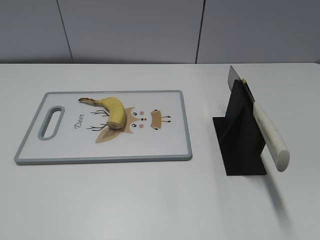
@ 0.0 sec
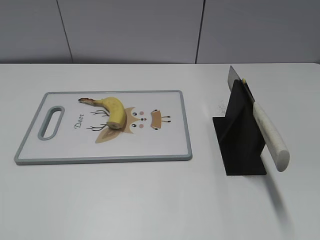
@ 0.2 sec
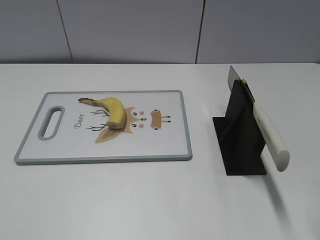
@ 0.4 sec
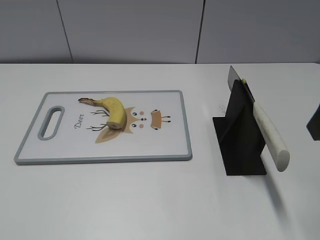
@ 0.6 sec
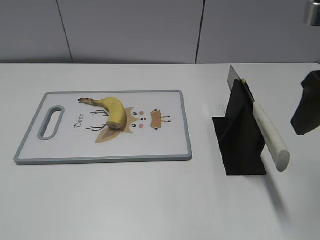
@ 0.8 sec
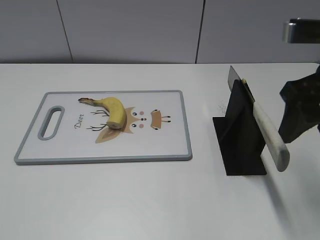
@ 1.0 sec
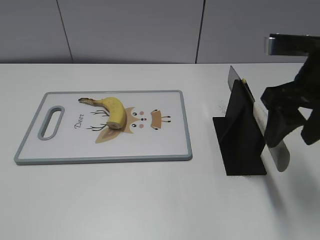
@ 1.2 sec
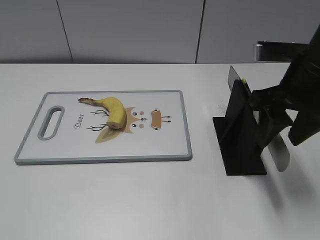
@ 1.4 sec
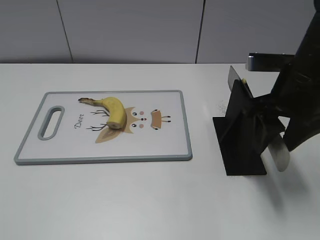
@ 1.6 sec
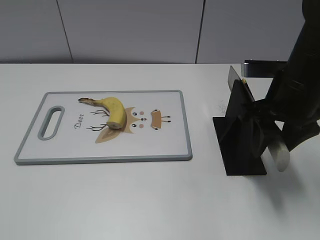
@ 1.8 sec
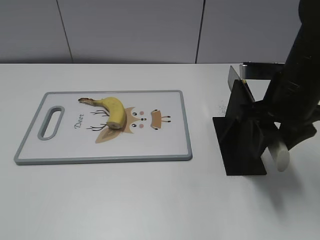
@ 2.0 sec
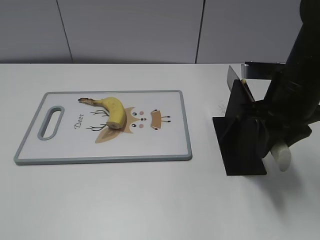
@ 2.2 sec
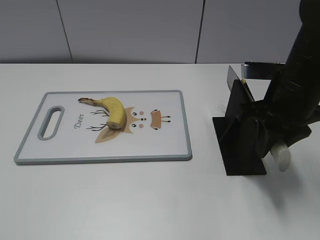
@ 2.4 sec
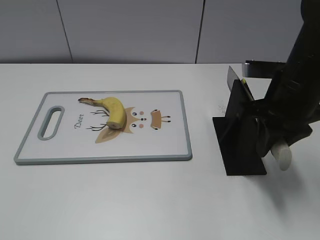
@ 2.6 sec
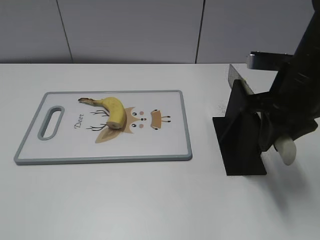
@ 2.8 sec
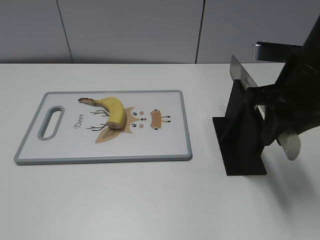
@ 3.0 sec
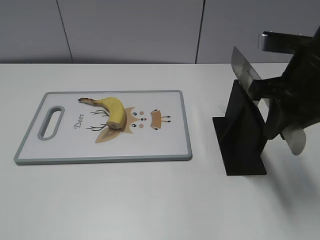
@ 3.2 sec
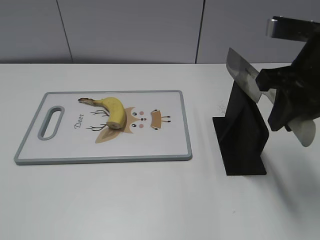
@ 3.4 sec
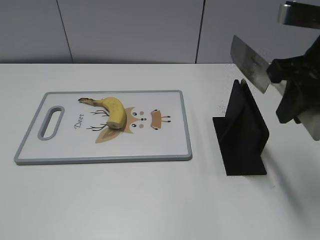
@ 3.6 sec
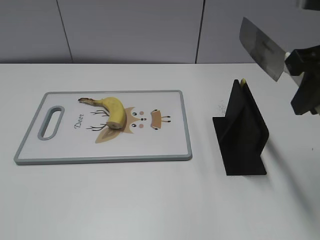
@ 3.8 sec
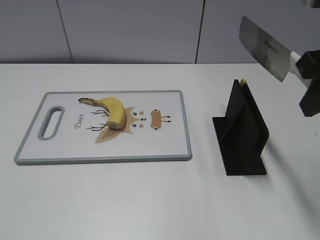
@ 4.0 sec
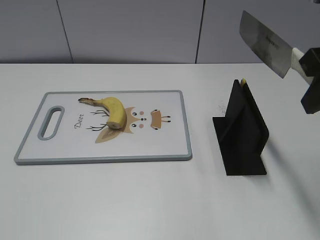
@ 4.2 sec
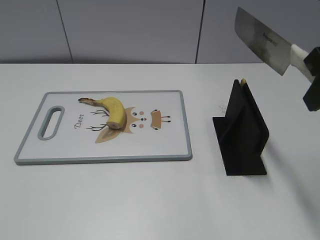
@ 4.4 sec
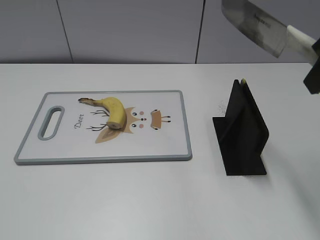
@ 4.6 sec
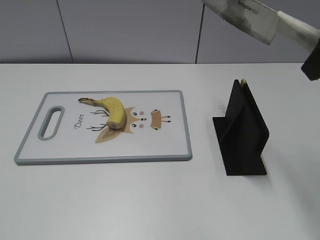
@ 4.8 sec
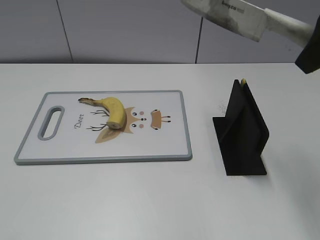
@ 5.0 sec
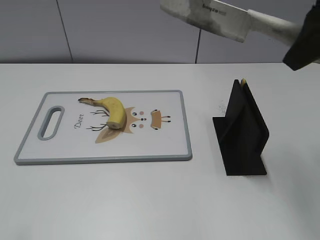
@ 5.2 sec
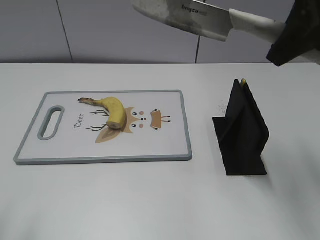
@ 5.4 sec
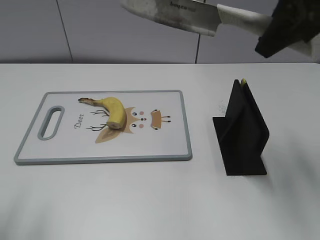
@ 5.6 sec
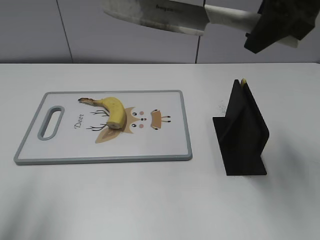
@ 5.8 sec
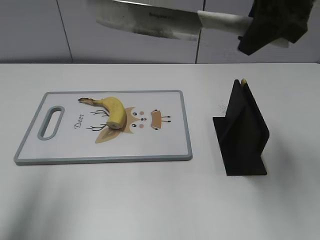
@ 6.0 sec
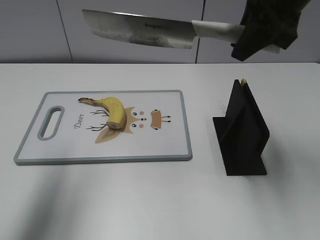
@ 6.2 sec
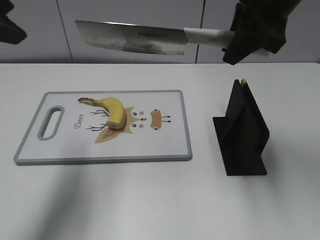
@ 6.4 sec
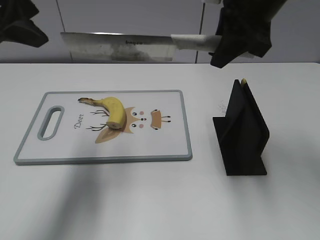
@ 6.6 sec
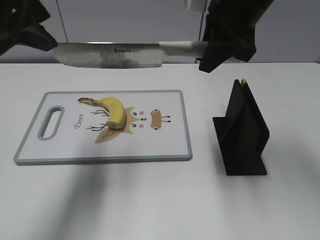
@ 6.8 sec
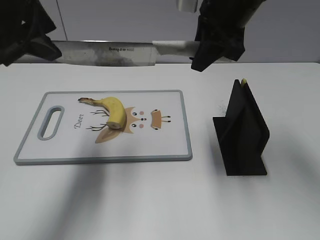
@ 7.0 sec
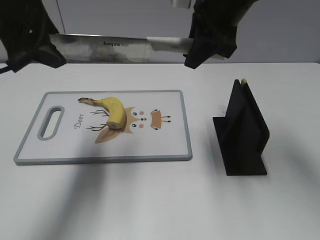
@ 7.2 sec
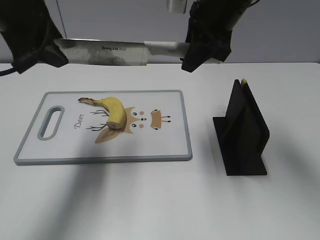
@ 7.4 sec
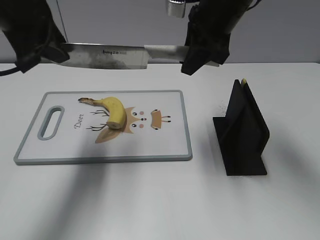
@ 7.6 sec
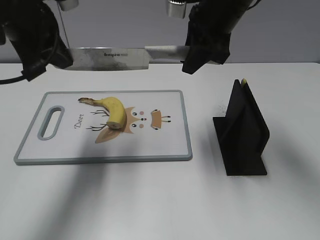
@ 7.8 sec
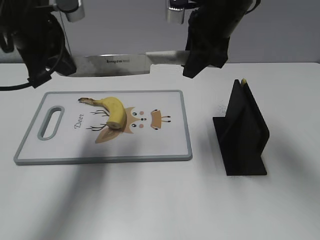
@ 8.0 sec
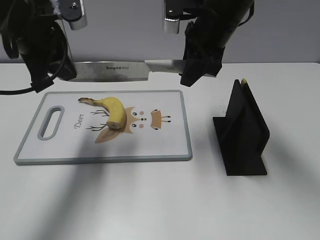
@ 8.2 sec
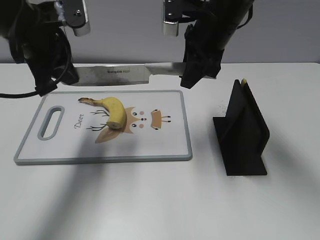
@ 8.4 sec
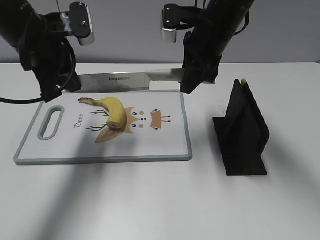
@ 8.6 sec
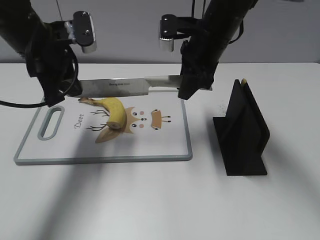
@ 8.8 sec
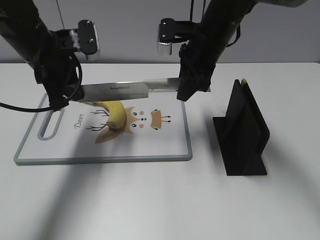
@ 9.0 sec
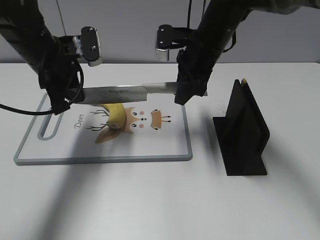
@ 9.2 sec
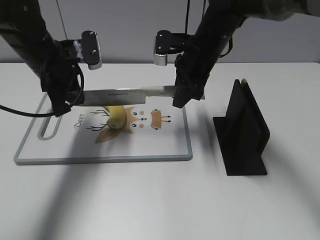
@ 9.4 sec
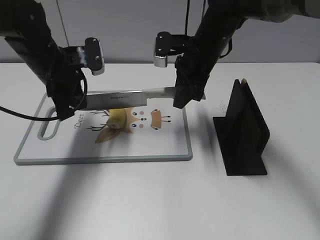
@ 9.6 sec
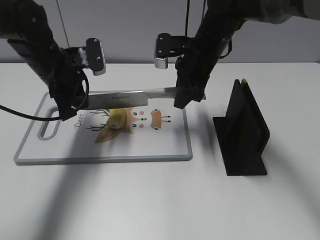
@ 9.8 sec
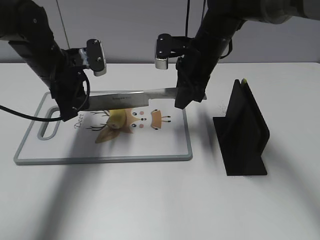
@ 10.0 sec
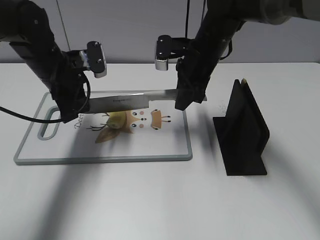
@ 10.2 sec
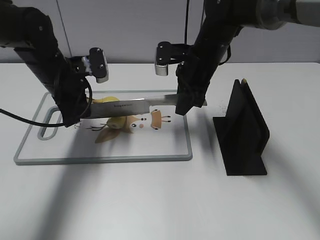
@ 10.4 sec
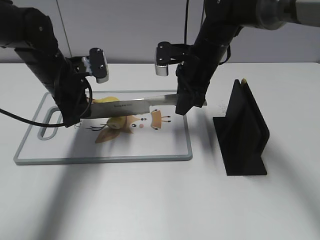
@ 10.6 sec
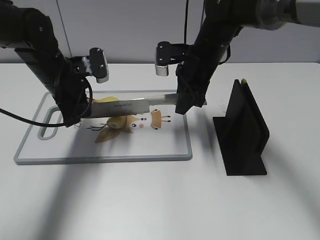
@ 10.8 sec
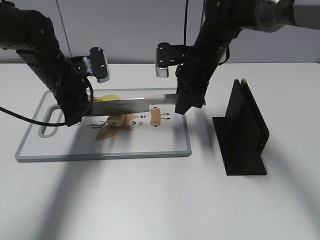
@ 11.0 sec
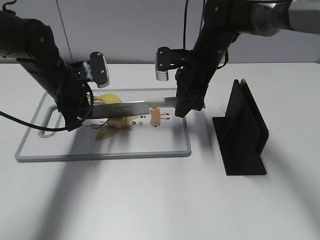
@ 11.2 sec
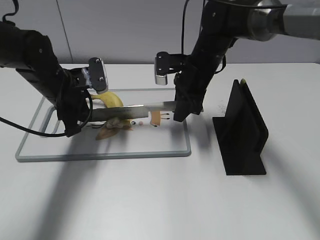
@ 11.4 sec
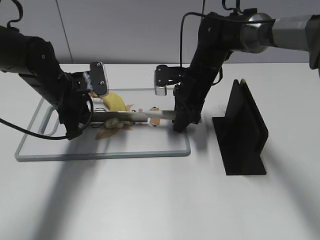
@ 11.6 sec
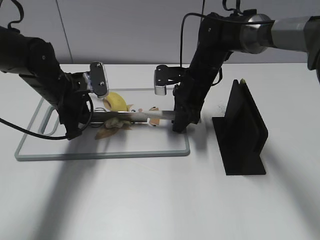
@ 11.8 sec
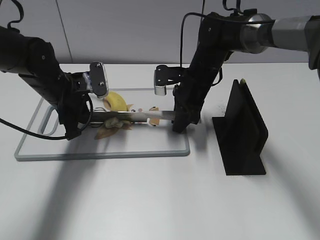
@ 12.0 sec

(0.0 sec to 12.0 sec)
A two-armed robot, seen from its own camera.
Task of the whole recording: cut banana.
Step, 0.0 sec - 3.4 sec: Grab the knife handle with your right hand.
Step, 3.6 sec - 10.4 sec: Lift the knife with your right hand.
0.0 sec - 1.6 sec: The right gripper goes roughly 20 cm forward, downward and to the left.
1.6 sec - 3.0 sec: The right gripper closes up.
3.0 sec - 4.4 sec: The right gripper goes roughly 10 cm upward and backward.
4.4 sec - 6.0 sec: The left gripper shifts roughly 20 cm forward and upward. The right gripper goes about 10 cm forward.
6.0 sec - 7.6 sec: The left gripper shifts about 15 cm forward, to the right and downward, and closes its fingers; the right gripper heads downward, to the left and forward, covering approximately 10 cm.
7.6 sec - 9.0 sec: The two grippers go some 10 cm downward. The left gripper closes.
9.0 sec - 10.4 sec: The left gripper heads downward, covering some 5 cm.
10.4 sec - 12.0 sec: The right gripper heads downward, covering some 5 cm.

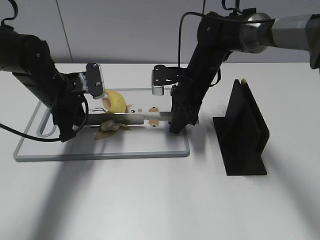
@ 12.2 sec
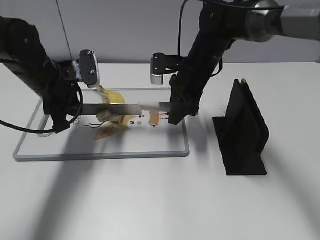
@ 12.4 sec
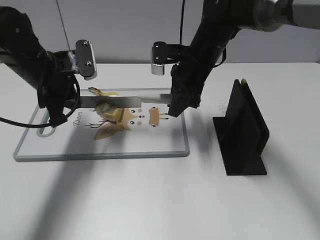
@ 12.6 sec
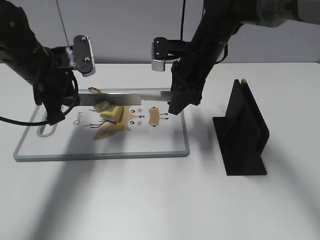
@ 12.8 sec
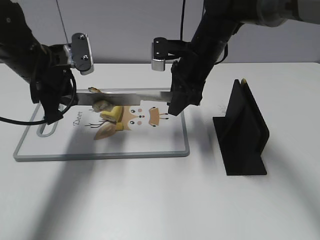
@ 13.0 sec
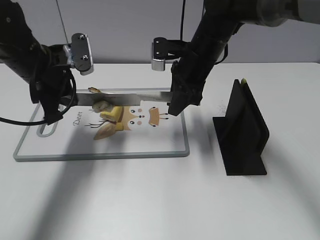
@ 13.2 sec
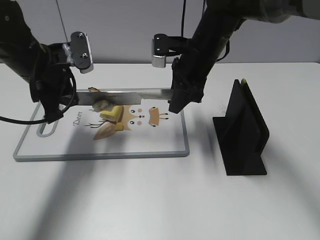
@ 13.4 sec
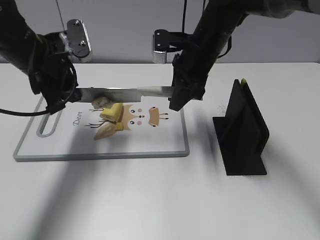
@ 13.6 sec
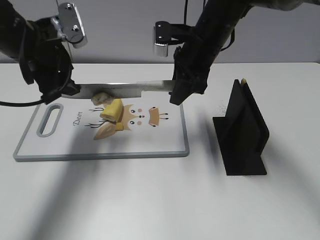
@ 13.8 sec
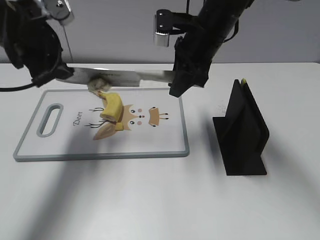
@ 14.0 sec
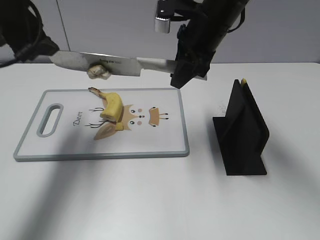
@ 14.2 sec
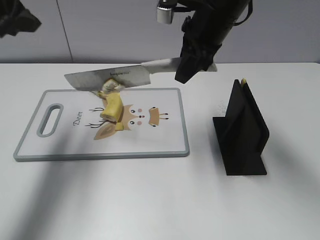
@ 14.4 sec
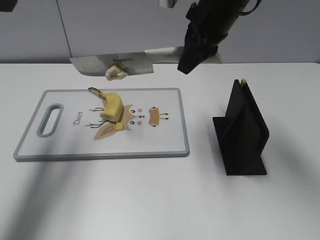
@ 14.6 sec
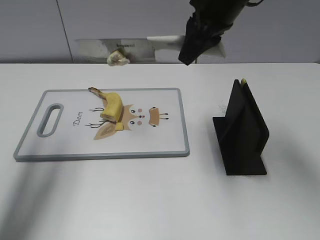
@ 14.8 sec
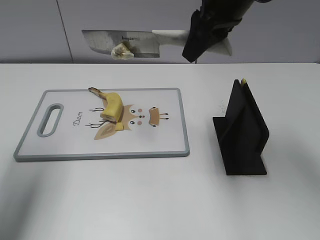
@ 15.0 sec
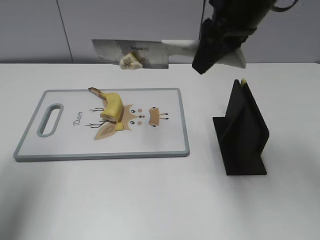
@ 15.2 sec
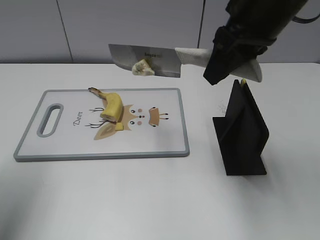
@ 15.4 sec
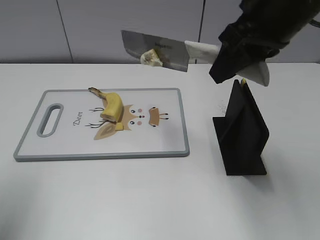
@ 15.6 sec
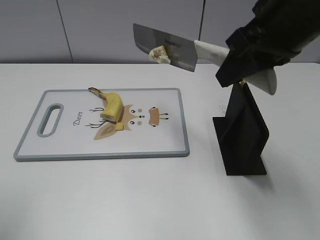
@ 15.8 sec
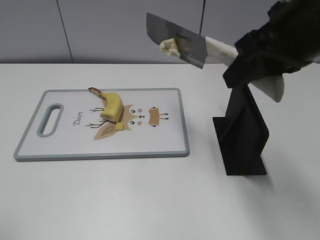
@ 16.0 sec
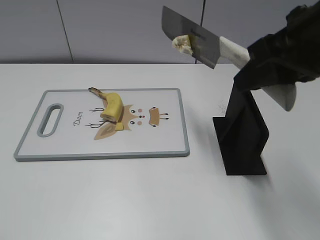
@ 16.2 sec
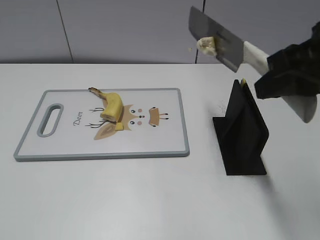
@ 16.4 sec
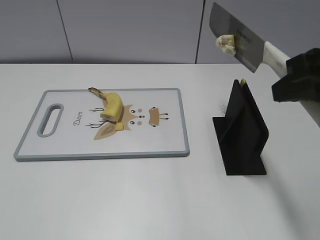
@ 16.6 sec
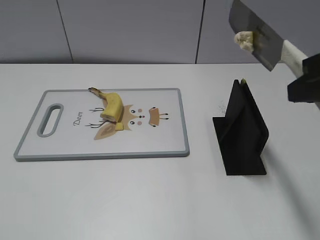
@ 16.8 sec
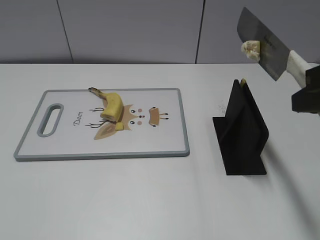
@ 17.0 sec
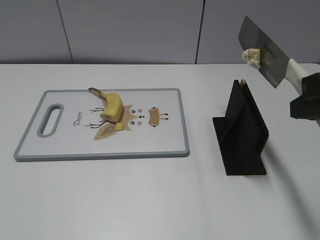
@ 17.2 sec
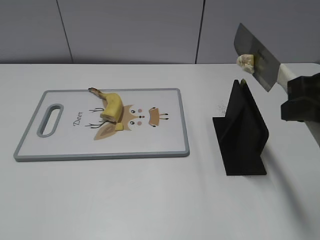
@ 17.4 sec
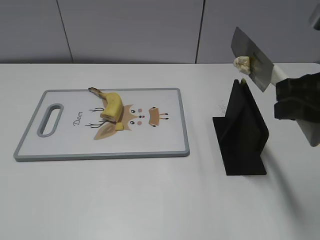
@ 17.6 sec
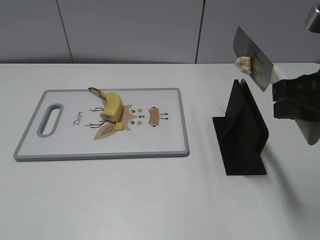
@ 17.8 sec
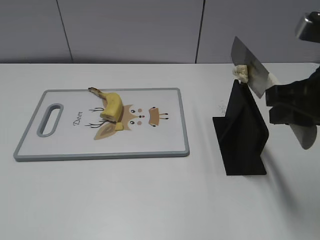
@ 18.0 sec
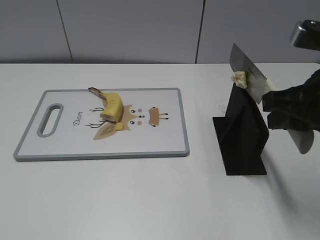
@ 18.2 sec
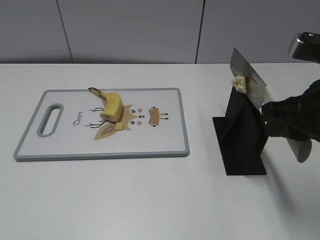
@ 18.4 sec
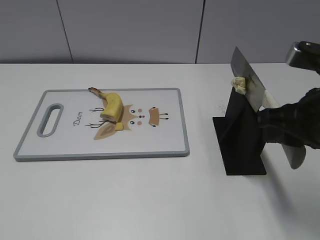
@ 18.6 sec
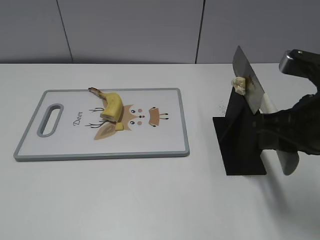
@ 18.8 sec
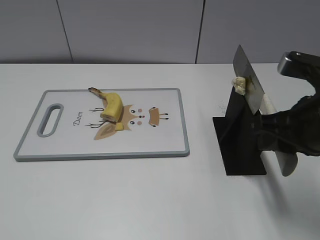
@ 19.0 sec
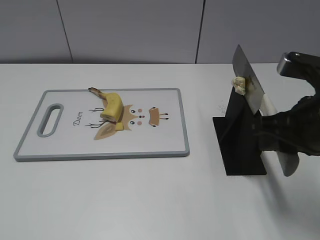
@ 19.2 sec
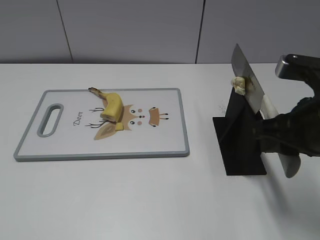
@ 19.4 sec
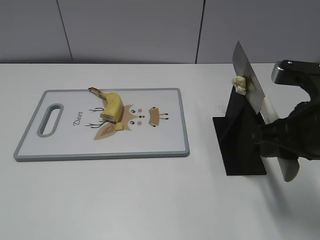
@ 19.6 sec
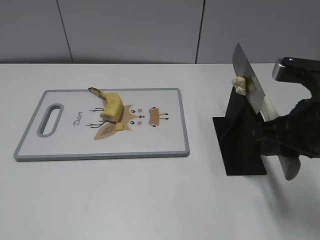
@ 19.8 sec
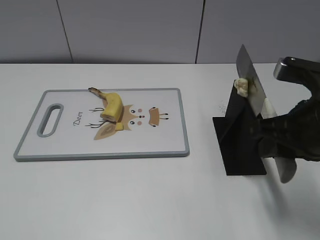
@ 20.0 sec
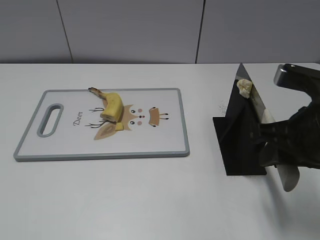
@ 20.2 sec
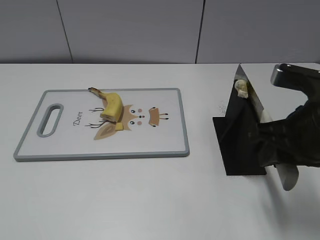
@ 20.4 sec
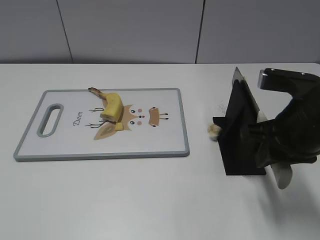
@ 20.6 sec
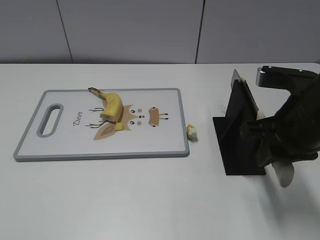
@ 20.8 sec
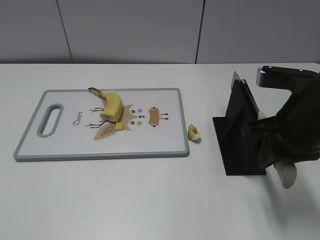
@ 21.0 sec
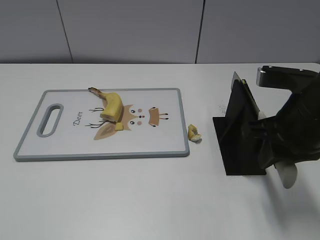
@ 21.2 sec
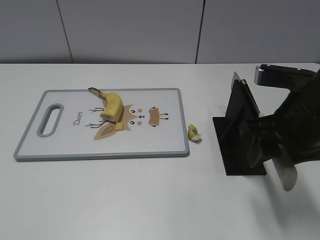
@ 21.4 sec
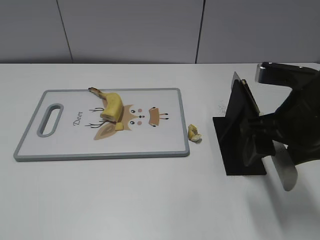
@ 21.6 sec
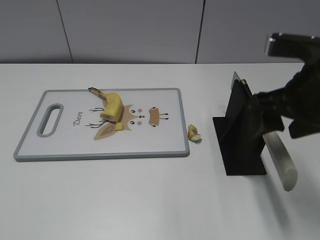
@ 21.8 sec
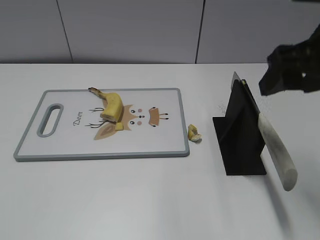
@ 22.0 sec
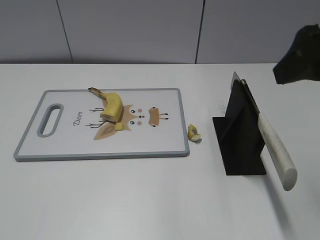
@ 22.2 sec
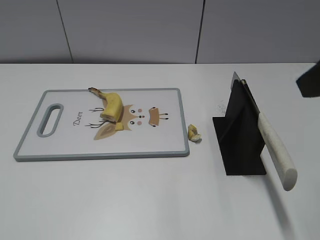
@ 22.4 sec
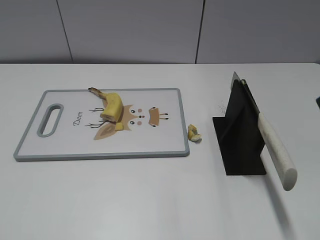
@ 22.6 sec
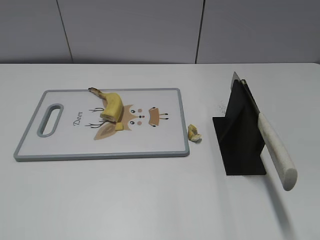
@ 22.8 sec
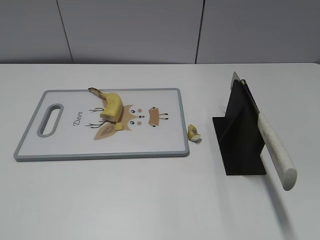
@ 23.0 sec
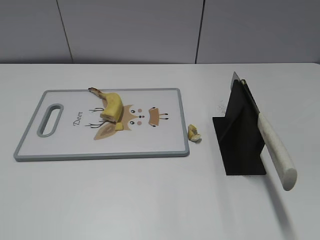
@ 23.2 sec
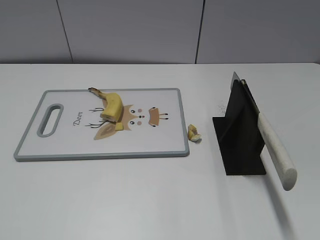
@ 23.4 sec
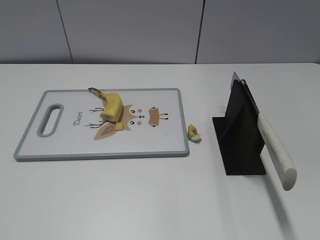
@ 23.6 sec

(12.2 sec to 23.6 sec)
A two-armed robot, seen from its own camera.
Task of the whole recording: cut banana.
Step, 12.2 sec - 15.6 sec: Cut the banana with your right hand.
Step, 16.0 sec - 18.0 sec: Secure the blade with your left hand.
12.2 sec - 13.6 sec: Both grippers move upward, some 10 cm. The left gripper opens.
13.6 sec - 15.0 sec: The left gripper shifts some 20 cm upward, to the left and backward, and opens its fingers. The right gripper heads upward, covering approximately 15 cm.
15.0 sec - 16.4 sec: The right gripper is displaced backward and to the right by some 15 cm; the left gripper heads backward, covering approximately 25 cm.
16.4 sec - 17.8 sec: The grippers stay close to where they were, moving slightly.
17.8 sec - 19.4 sec: The right gripper goes approximately 5 cm downward.
19.4 sec - 20.8 sec: There are only small adjustments of the grippers.
20.8 sec - 22.2 sec: The right gripper moves upward, about 15 cm, and opens its fingers.
22.2 sec - 23.6 sec: The right gripper is displaced backward and to the right by approximately 20 cm.
